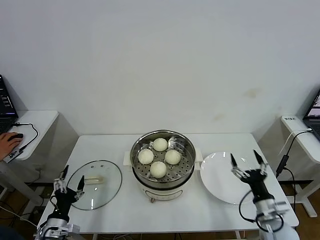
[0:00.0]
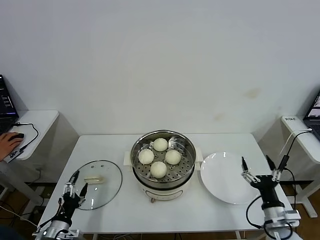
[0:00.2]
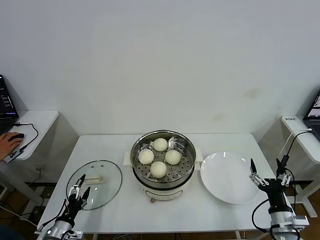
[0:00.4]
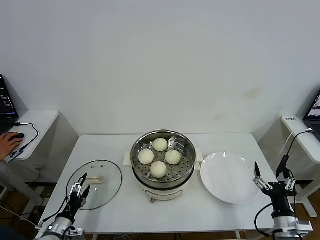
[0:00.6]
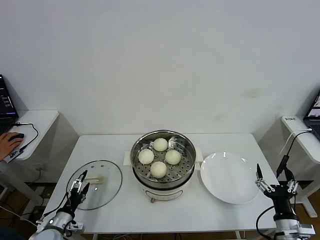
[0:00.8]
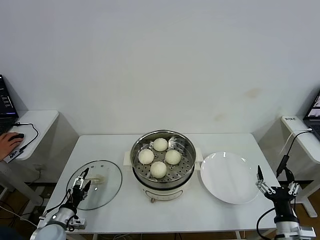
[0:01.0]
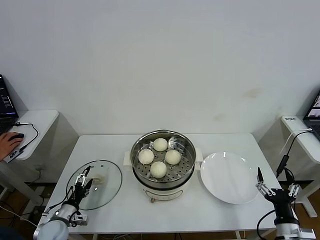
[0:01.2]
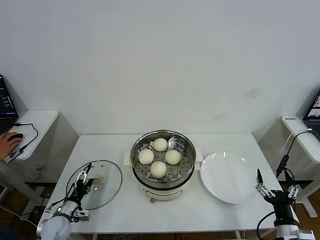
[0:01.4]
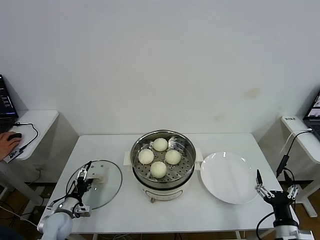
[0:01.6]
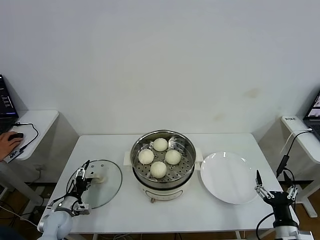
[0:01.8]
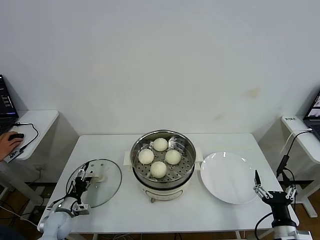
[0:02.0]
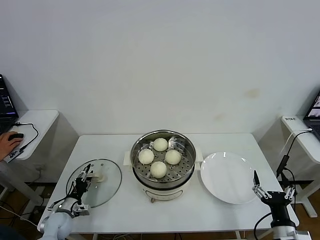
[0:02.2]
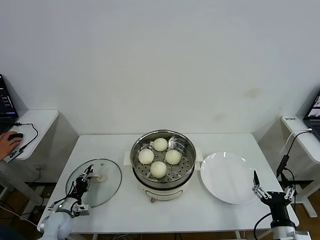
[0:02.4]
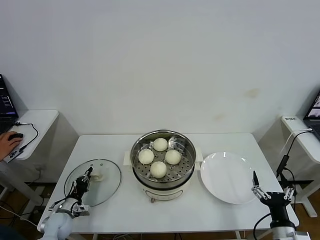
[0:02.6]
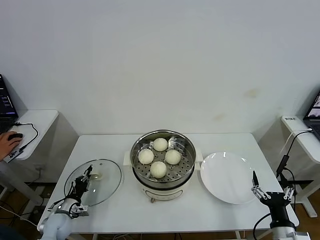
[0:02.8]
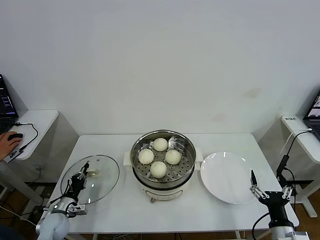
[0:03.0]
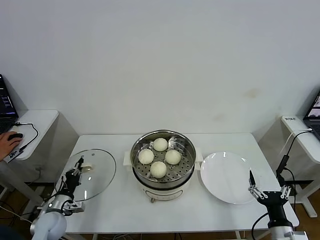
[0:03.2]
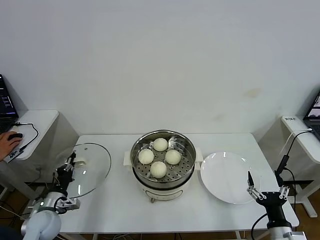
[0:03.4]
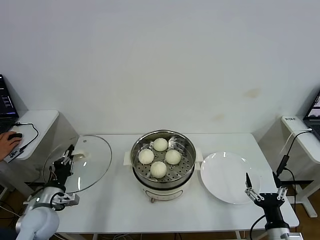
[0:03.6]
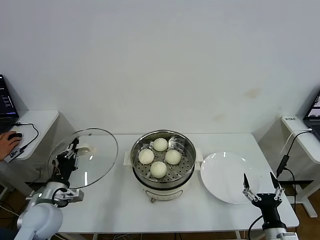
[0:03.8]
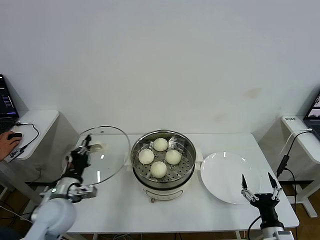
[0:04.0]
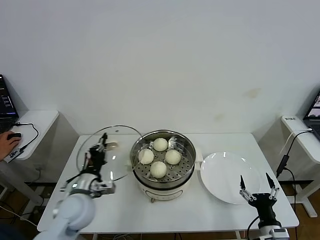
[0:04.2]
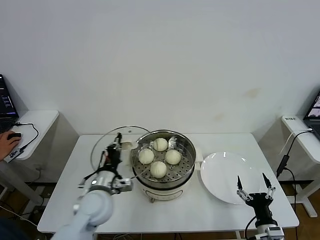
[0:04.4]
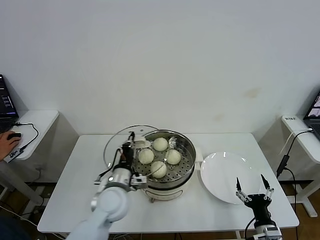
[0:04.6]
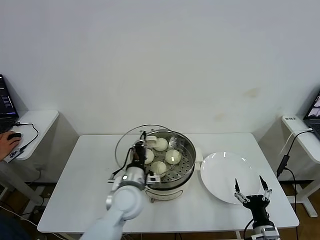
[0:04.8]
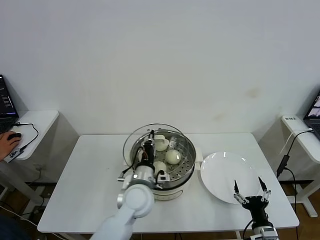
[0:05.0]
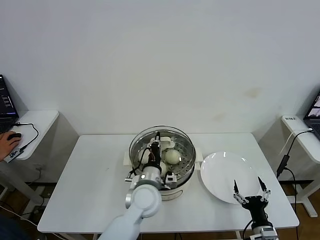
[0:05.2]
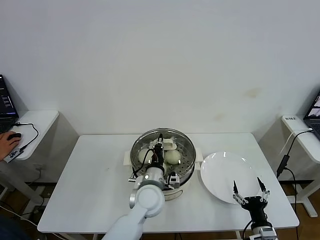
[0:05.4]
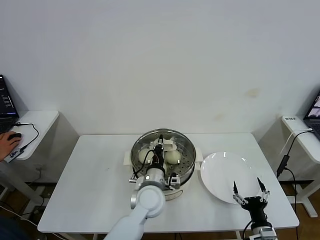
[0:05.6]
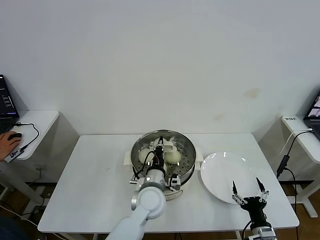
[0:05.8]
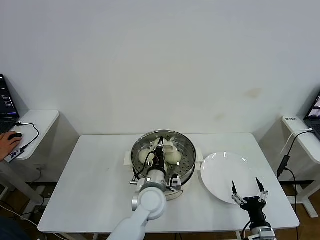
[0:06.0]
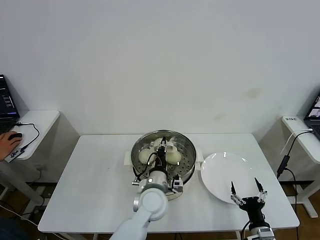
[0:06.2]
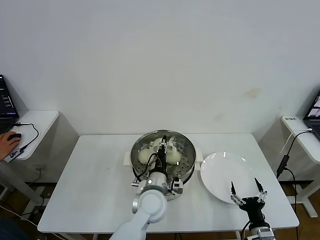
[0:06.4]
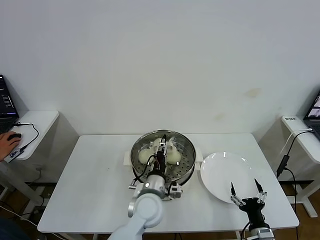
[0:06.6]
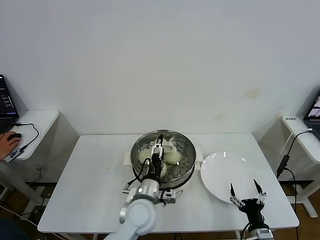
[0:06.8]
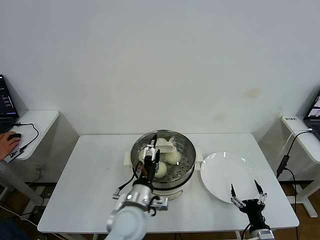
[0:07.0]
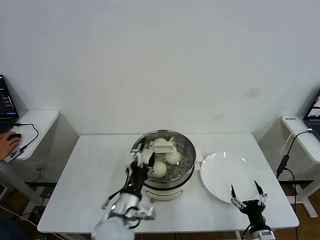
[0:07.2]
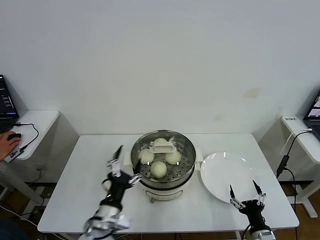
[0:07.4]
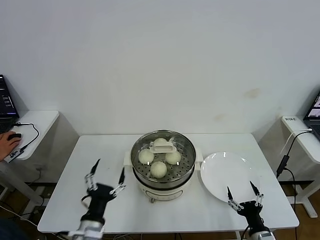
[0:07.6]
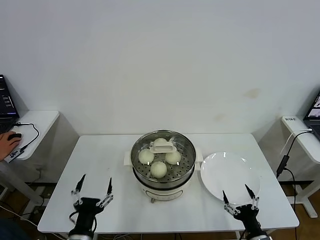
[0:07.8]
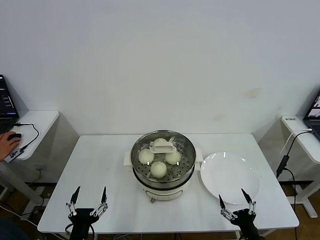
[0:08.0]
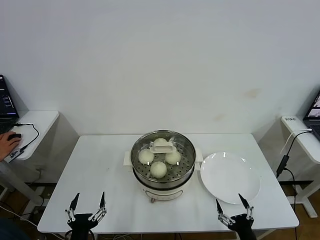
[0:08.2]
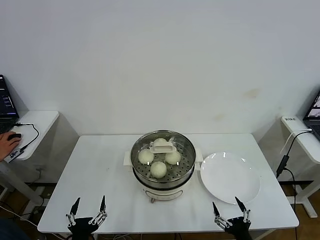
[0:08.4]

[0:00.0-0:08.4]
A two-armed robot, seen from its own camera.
Task of the whole recording: take steamed baozi put them in steamer then cover it.
Step, 0:00.0 to 0:02.6: Grasp the pot lid with left gripper.
Step, 0:03.0 to 0:06.4: Place the pot lid on the steamer with left gripper.
0:00.0 to 0:01.4: The right gripper is displaced backward by about 10 cm, while the left gripper heads forward and downward, covering some 10 cm.
0:01.4 to 0:02.8: The left gripper closes up.
0:02.8 to 0:04.2: The left gripper moves upward and to the right, approximately 25 cm.
0:04.2 to 0:05.6: The left gripper goes about 20 cm to the right.
0:05.6 to 0:07.0: The left gripper goes some 5 cm backward, and opens its fingers.
0:07.0 to 0:08.4: The left gripper is displaced backward and to the left by about 25 cm. The right gripper heads backward, covering approximately 5 cm.
